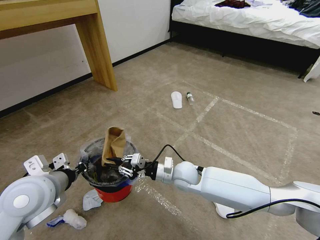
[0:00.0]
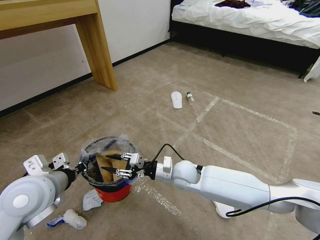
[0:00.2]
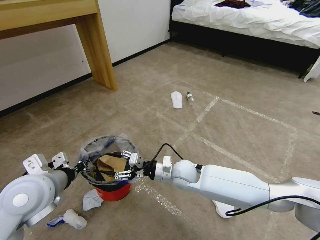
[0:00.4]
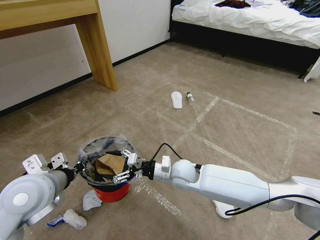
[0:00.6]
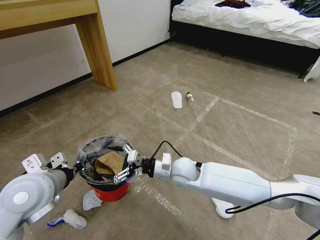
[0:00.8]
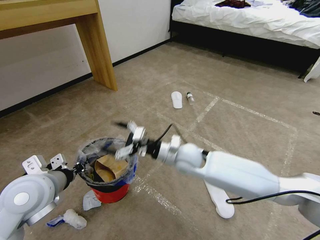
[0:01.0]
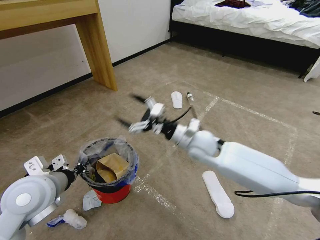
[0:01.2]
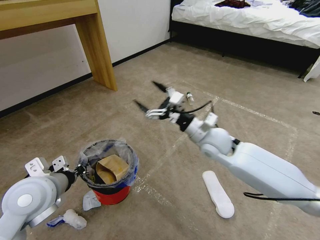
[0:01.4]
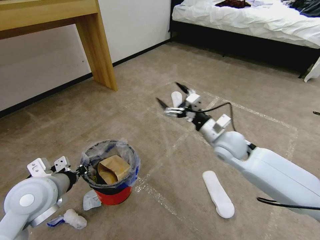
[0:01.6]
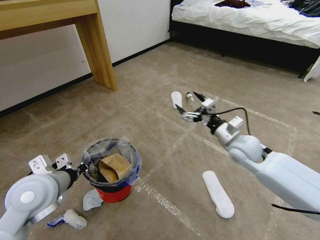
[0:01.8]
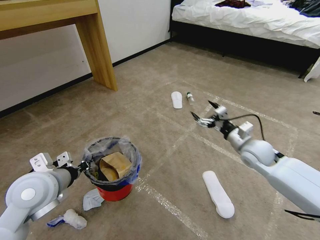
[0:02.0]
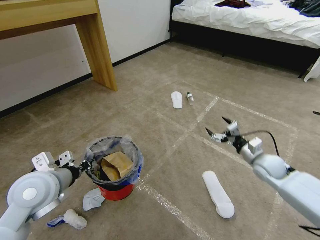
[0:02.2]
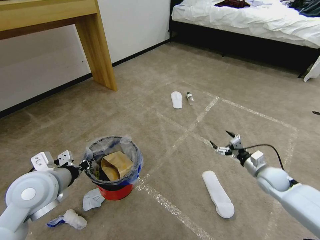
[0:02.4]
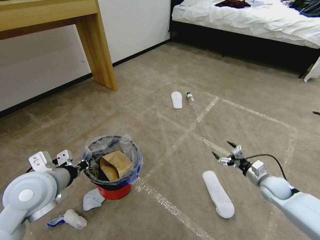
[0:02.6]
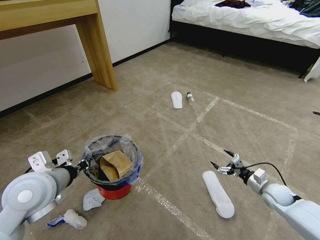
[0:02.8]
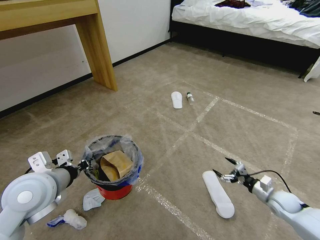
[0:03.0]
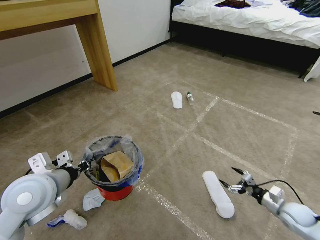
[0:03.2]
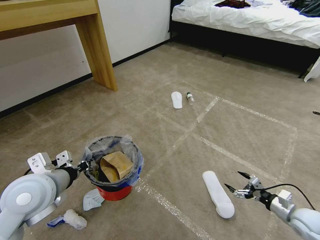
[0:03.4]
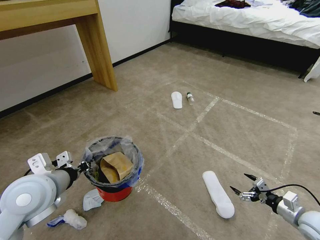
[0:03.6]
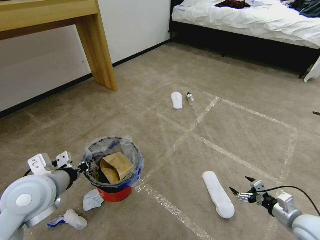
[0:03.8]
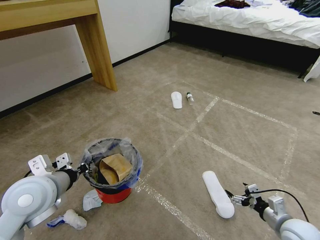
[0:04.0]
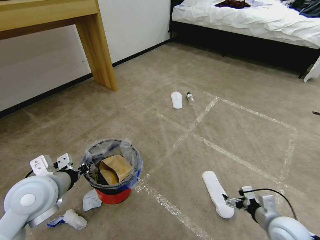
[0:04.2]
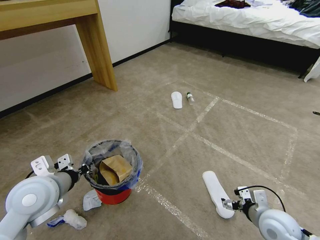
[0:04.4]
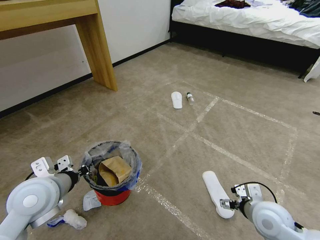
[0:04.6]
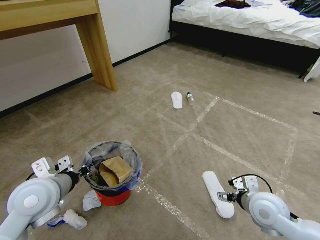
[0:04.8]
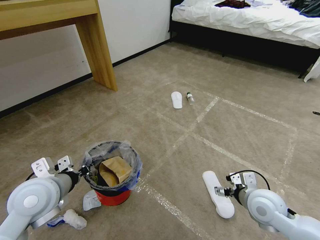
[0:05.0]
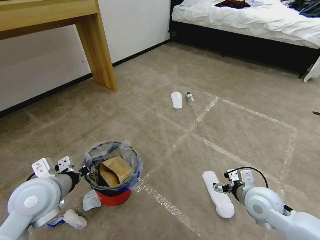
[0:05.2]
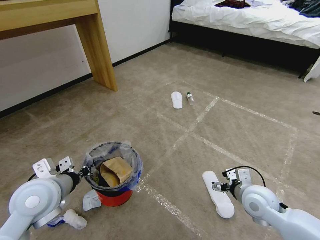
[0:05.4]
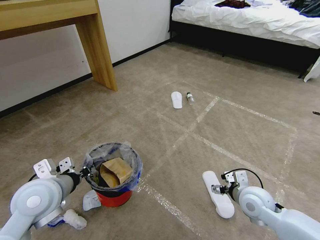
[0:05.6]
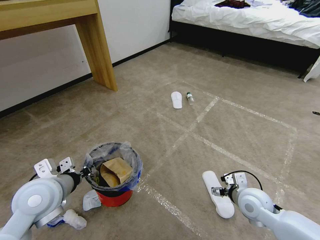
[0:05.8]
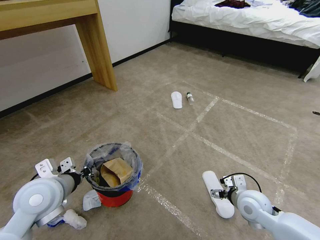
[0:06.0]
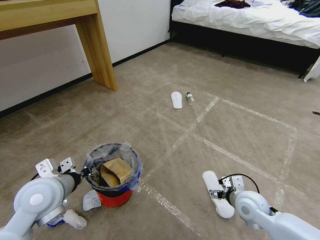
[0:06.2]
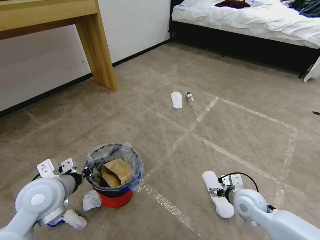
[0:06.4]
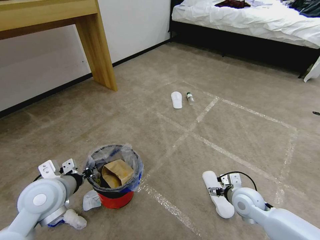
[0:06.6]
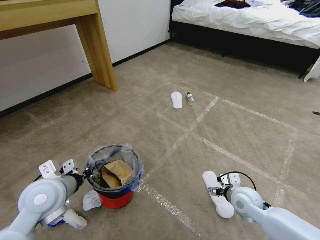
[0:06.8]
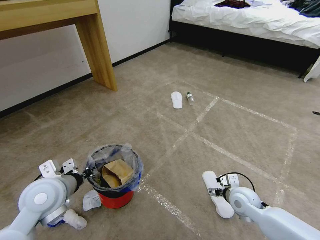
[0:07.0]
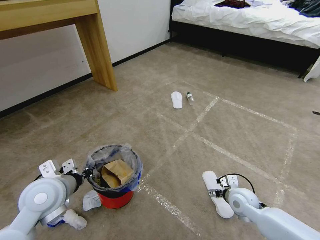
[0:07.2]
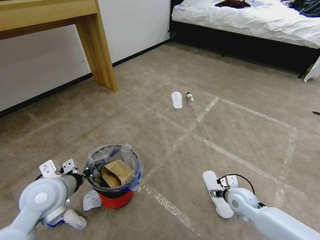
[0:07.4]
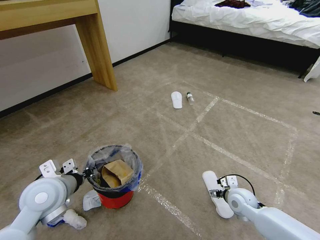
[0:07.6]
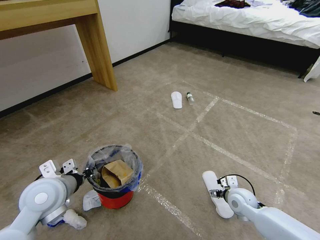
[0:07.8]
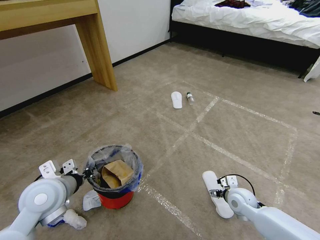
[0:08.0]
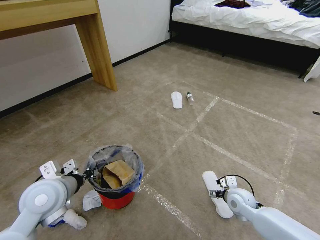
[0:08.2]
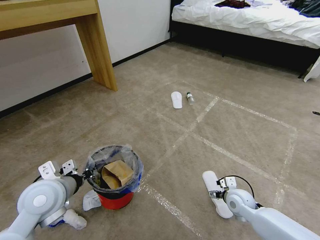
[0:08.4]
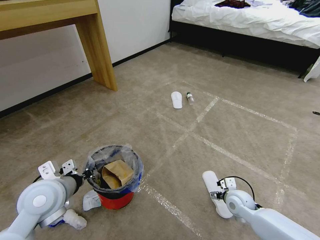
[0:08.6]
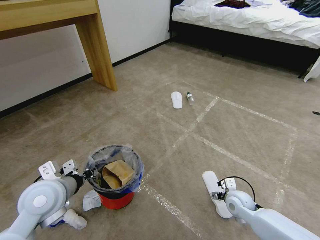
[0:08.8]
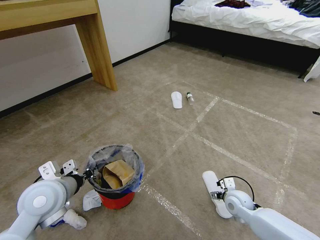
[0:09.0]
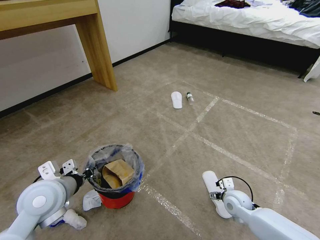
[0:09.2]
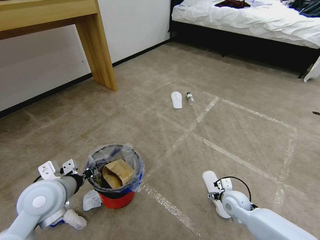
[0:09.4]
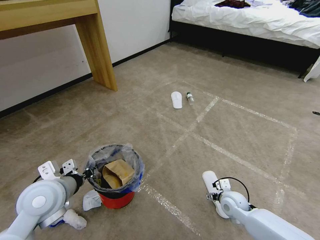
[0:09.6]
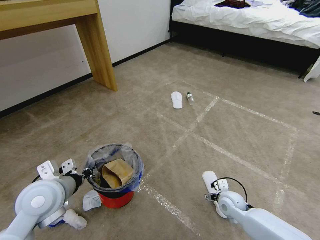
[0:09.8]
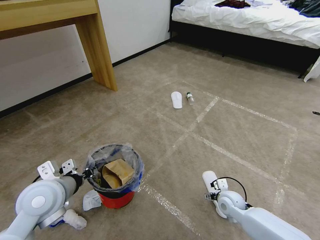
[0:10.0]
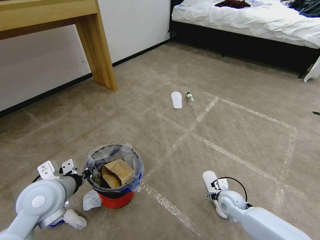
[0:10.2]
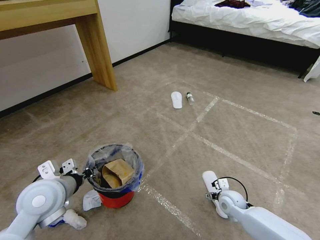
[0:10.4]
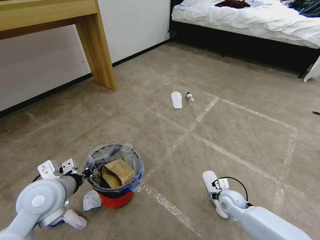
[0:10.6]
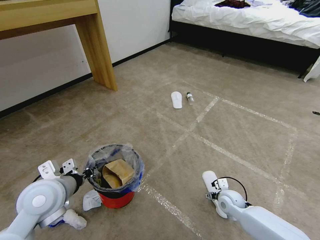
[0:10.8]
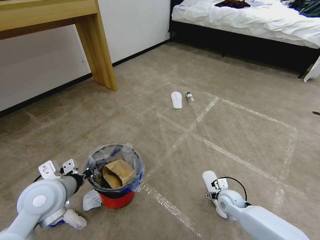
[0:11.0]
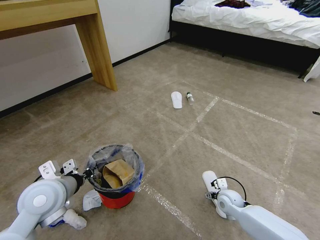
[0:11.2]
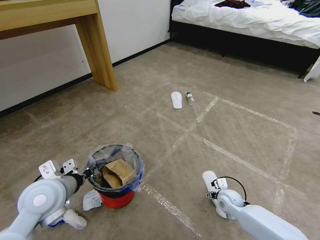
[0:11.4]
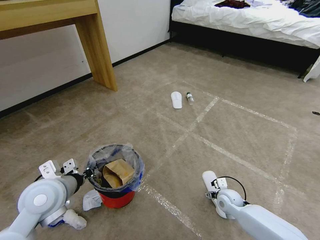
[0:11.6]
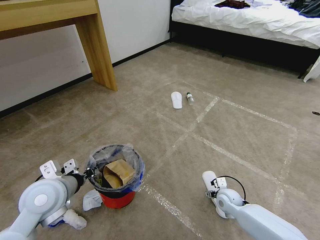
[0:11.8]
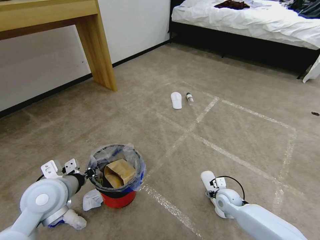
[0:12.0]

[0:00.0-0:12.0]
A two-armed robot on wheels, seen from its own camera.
Task of the whole recording: Pick up the trash bin and place the garbage on the floor into it.
0:00.0 to 0:01.6: The right gripper moves to the right and upward, roughly 20 cm, and opens.
0:01.6 to 0:03.0: The right gripper moves to the right, downward and backward, about 35 cm.
0:03.0 to 0:04.4: The right gripper heads to the left, upward and backward, covering some 20 cm.
0:04.4 to 0:06.0: The right gripper shifts about 5 cm forward.
0:06.0 to 0:07.6: The right gripper moves downward, some 5 cm.
0:07.6 to 0:10.4: The grippers move only a little.
0:10.4 to 0:12.0: There are only small adjustments of the grippers.

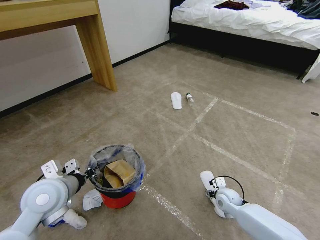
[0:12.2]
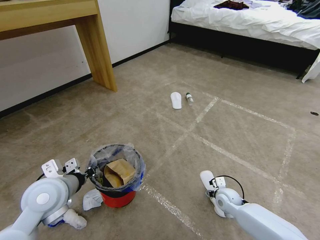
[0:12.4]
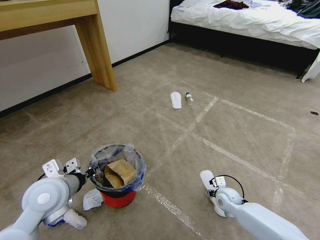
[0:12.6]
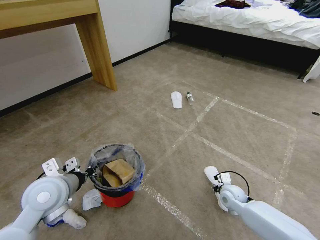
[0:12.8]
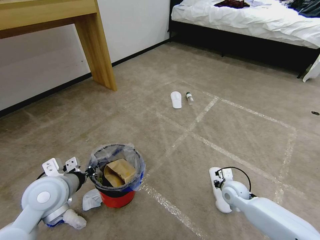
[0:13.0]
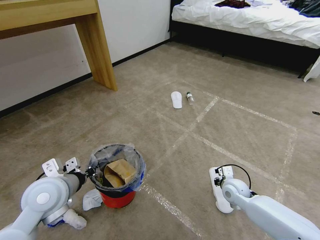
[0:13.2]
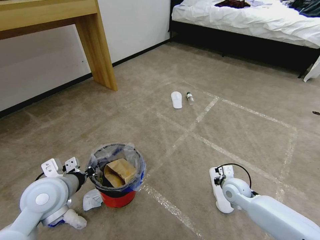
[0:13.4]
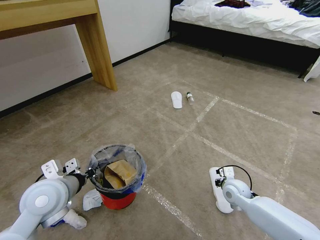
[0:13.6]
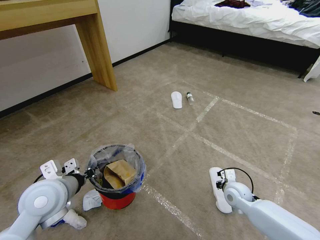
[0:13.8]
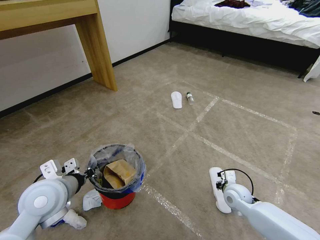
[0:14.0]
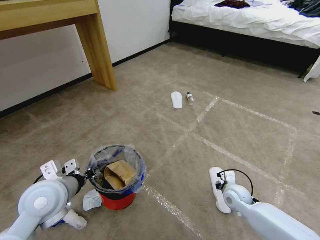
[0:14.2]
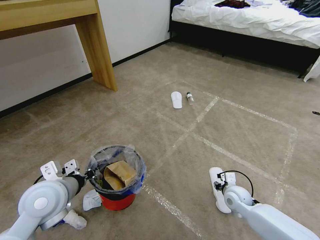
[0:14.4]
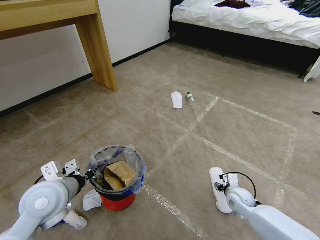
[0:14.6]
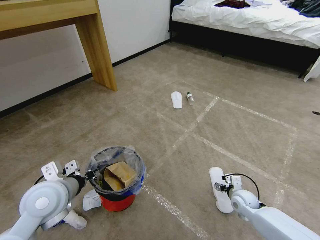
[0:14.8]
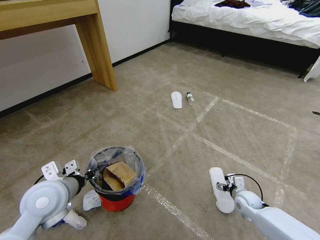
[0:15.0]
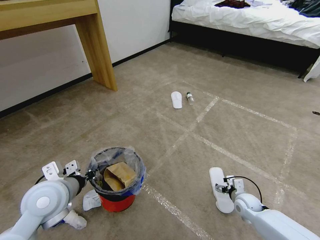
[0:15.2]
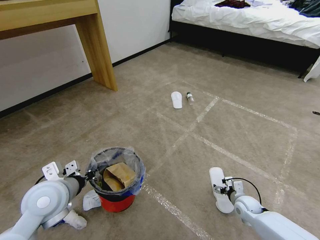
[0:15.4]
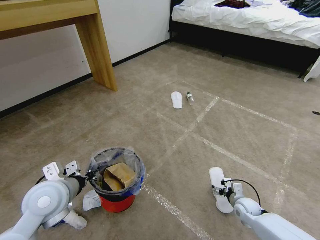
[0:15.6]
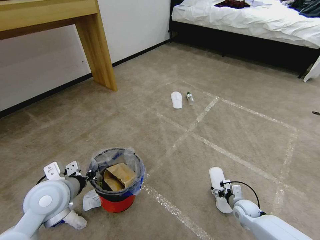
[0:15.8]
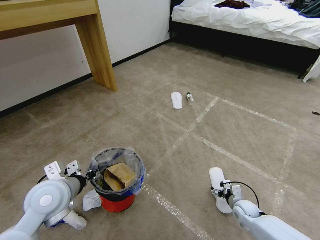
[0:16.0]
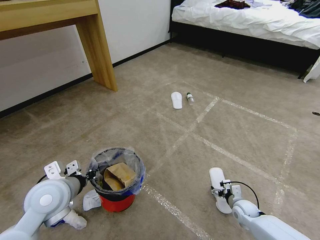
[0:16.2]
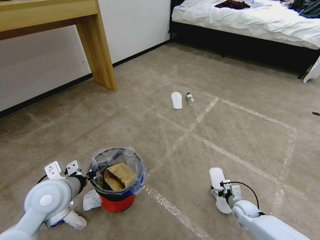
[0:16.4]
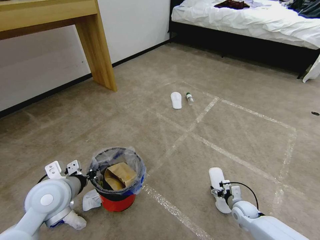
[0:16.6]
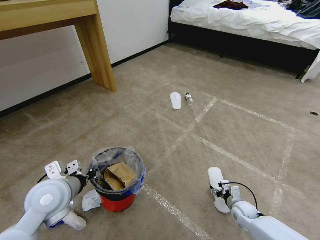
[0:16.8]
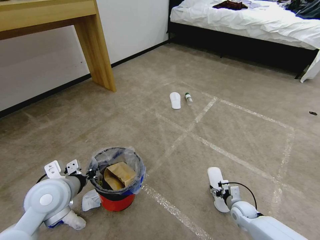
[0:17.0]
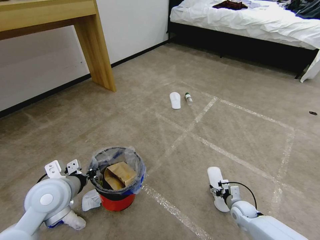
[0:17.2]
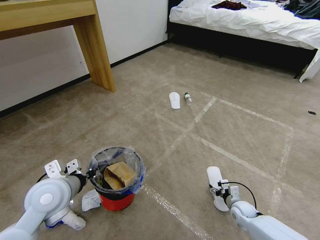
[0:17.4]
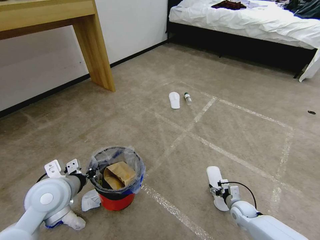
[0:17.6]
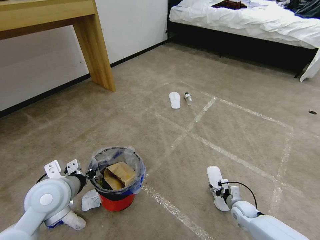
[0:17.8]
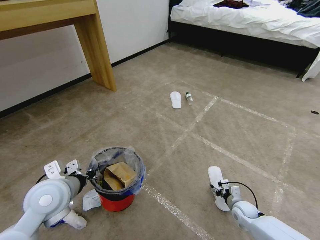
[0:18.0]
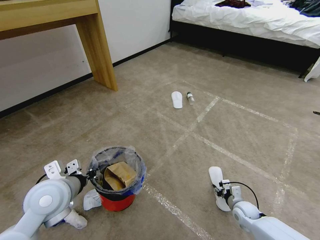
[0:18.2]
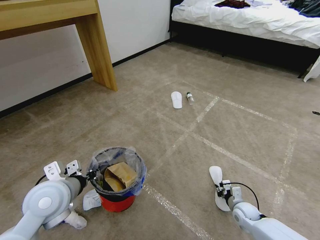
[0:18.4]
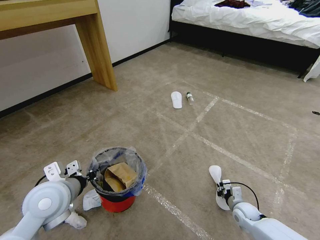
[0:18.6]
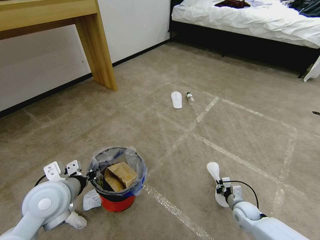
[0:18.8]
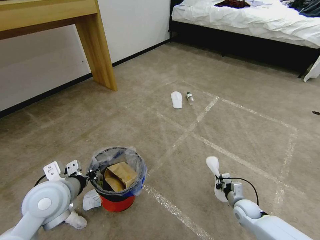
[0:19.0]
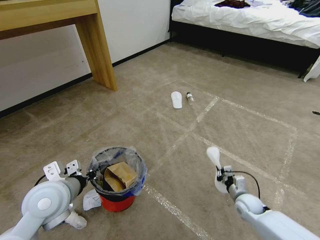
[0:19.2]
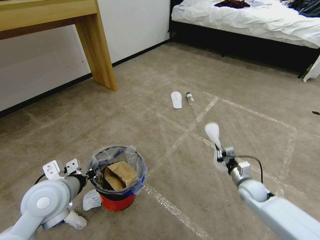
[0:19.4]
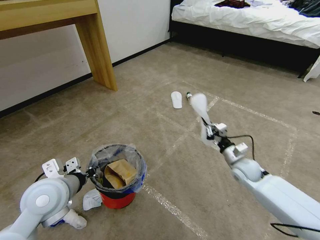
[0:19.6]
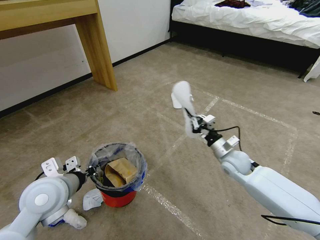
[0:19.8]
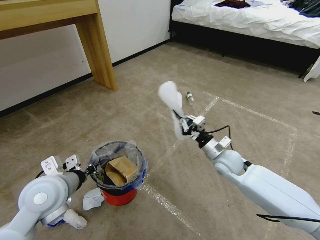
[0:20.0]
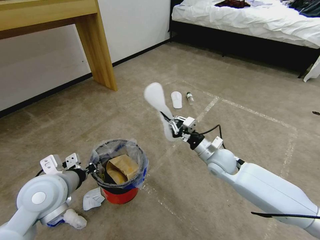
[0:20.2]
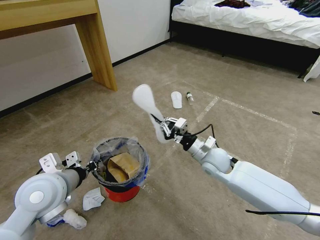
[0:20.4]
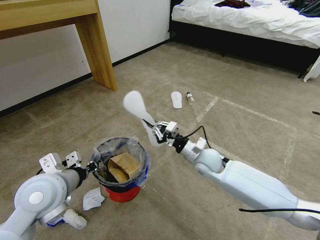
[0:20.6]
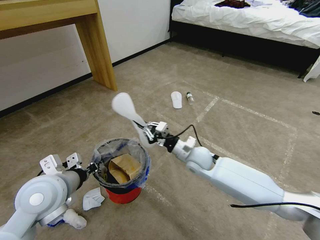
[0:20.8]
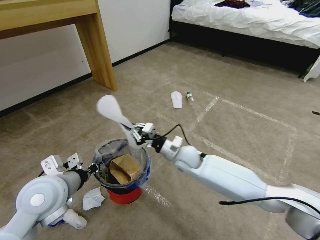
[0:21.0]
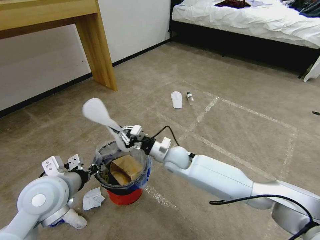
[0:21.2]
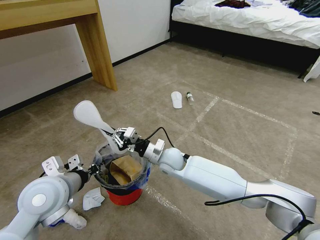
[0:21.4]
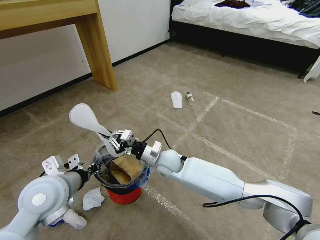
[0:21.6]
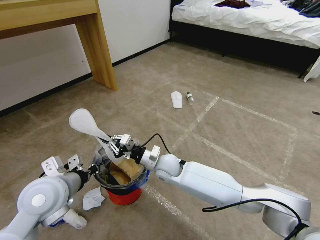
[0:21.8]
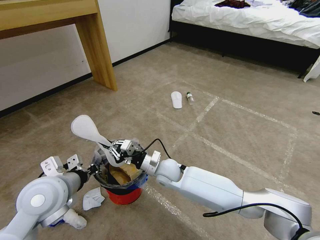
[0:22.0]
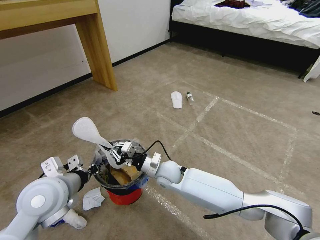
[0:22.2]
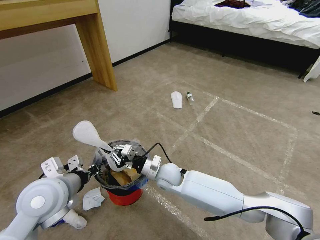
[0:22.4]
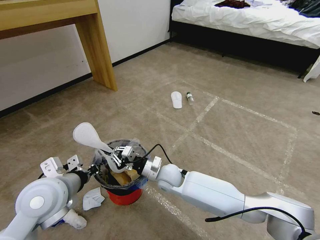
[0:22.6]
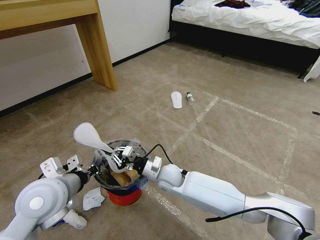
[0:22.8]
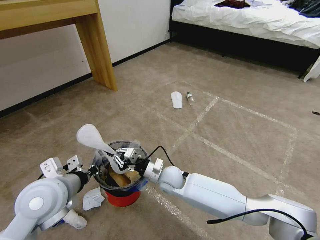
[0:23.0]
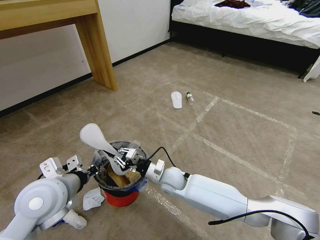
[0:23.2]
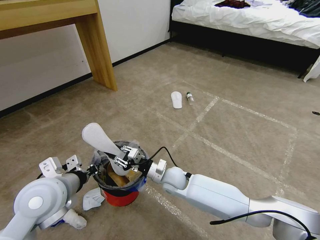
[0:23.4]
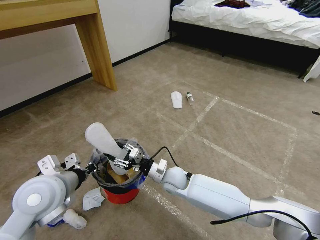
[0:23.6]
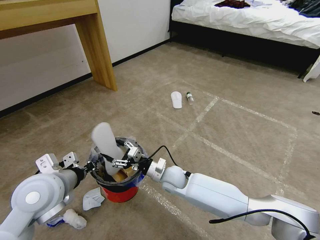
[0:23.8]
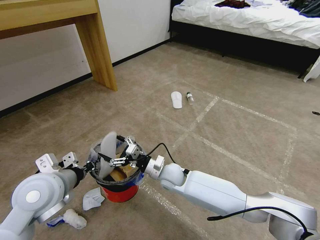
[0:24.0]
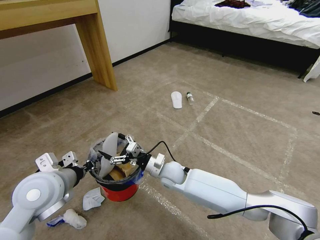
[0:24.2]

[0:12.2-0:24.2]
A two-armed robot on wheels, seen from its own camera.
Task of the whole recording: Pick up the trash bin and place the garbage on the floor into it.
0:12.2 to 0:13.8: The right gripper shifts about 5 cm upward, and closes up.
0:13.8 to 0:15.2: The right gripper is displaced downward and to the right by approximately 10 cm, and opens up.
0:15.2 to 0:16.6: The grippers stay close to where they were, moving slightly.
0:16.6 to 0:18.2: The right gripper closes its fingers.
0:18.2 to 0:19.8: The right gripper heads upward and forward, covering some 25 cm, and closes its fingers.
0:19.8 to 0:21.2: The right gripper goes roughly 25 cm to the left.
0:21.2 to 0:22.6: The right gripper changes place by roughly 5 cm.
0:22.6 to 0:24.2: The right gripper opens up.
